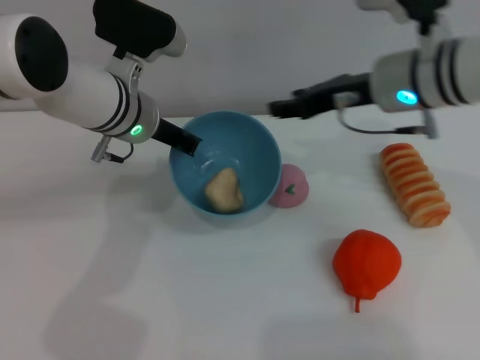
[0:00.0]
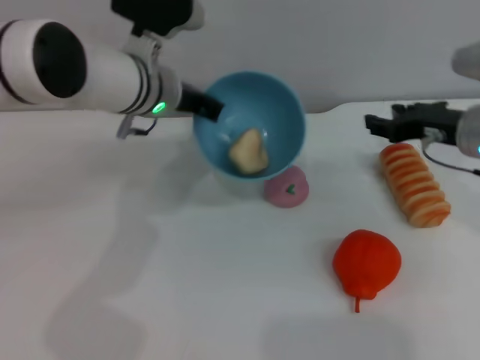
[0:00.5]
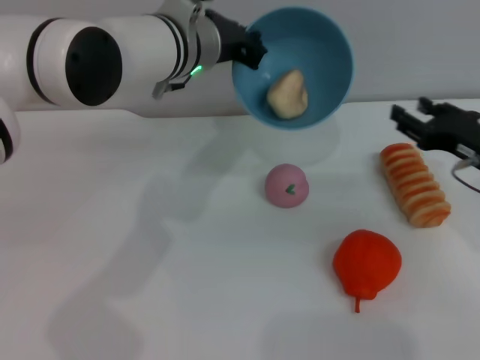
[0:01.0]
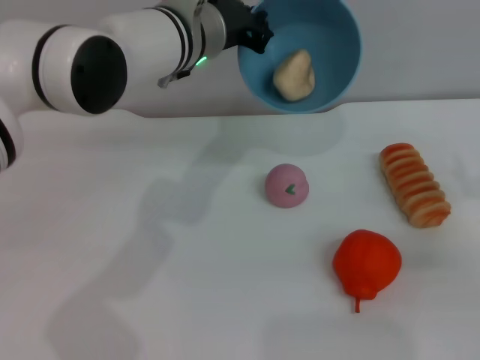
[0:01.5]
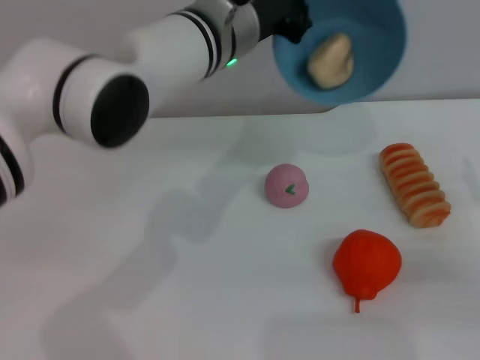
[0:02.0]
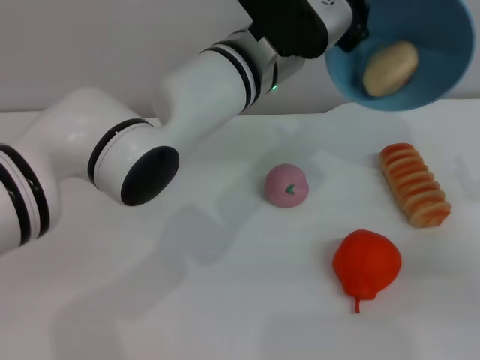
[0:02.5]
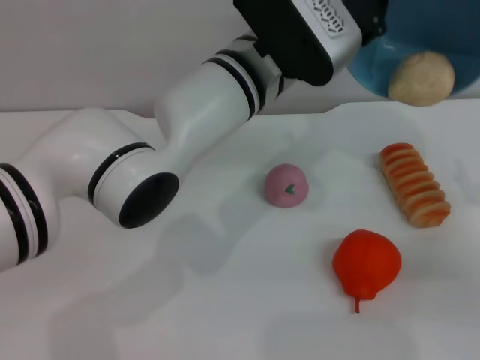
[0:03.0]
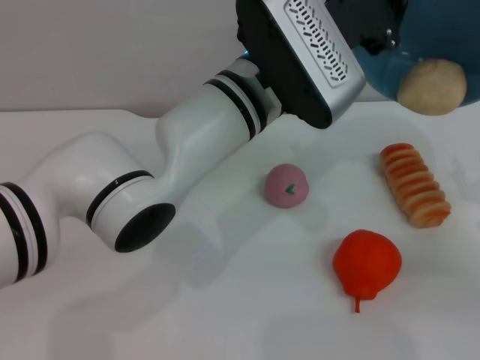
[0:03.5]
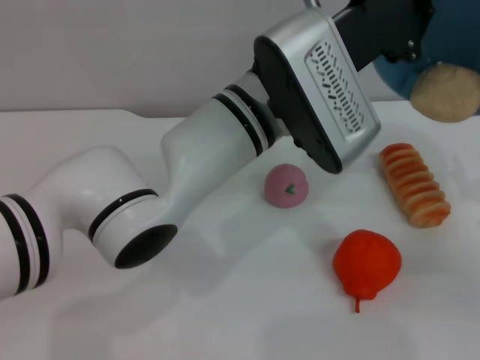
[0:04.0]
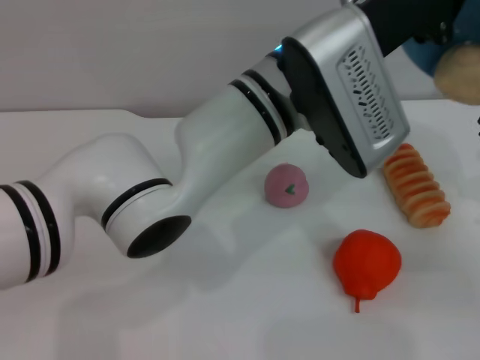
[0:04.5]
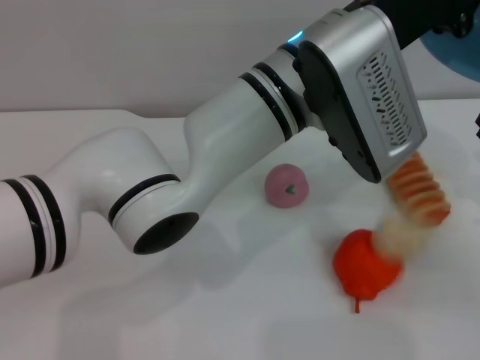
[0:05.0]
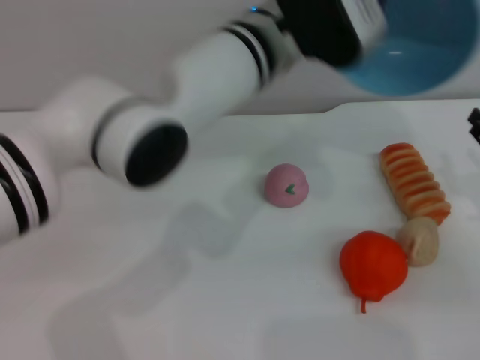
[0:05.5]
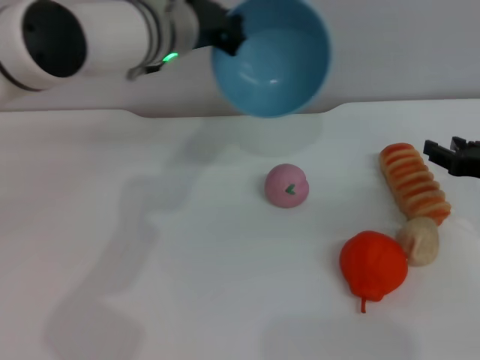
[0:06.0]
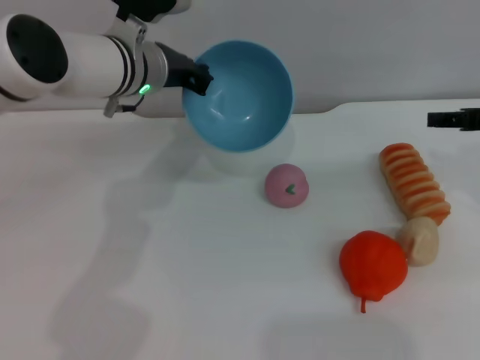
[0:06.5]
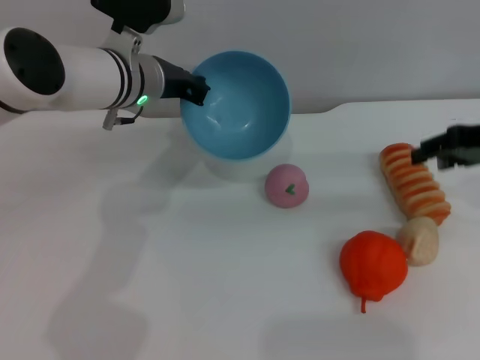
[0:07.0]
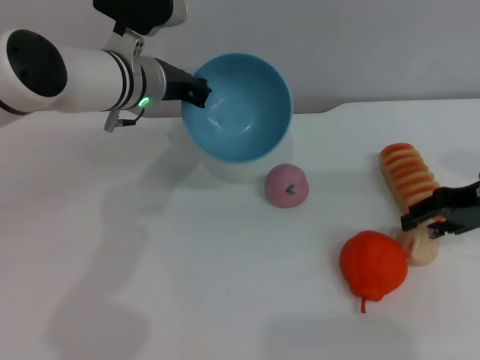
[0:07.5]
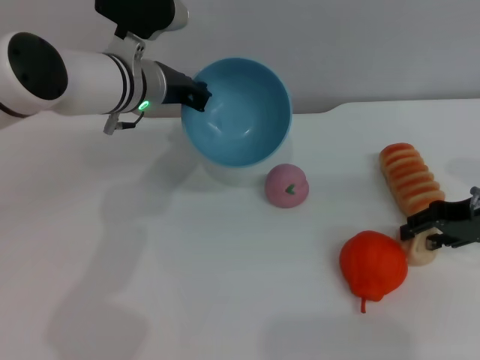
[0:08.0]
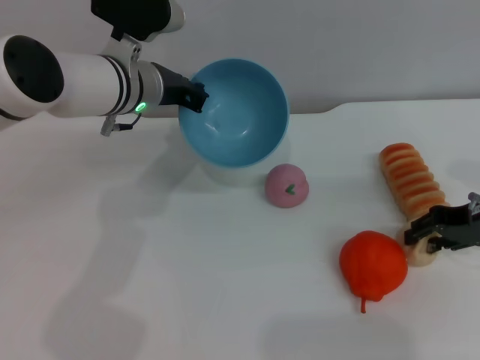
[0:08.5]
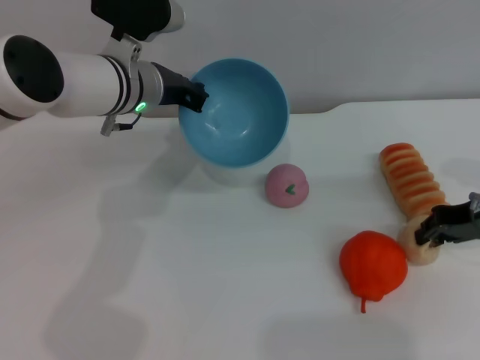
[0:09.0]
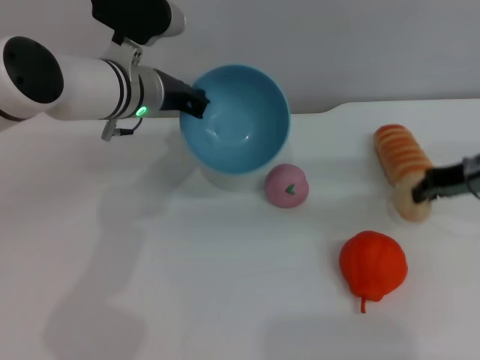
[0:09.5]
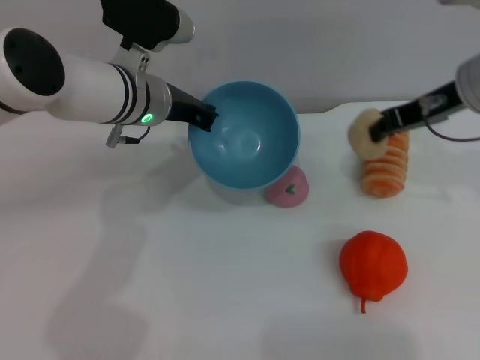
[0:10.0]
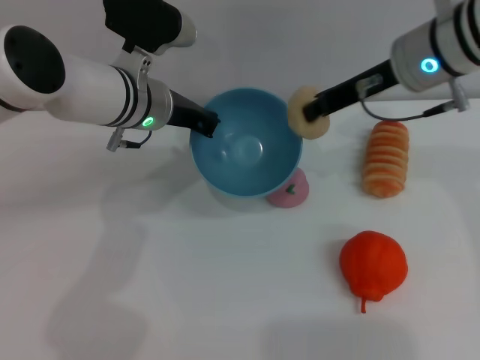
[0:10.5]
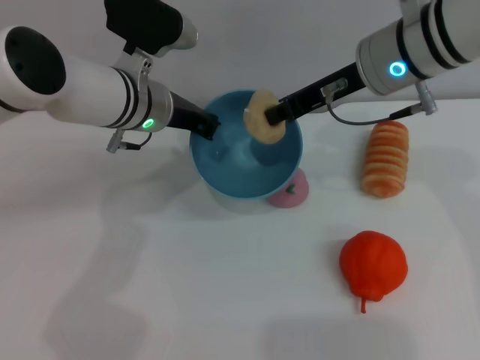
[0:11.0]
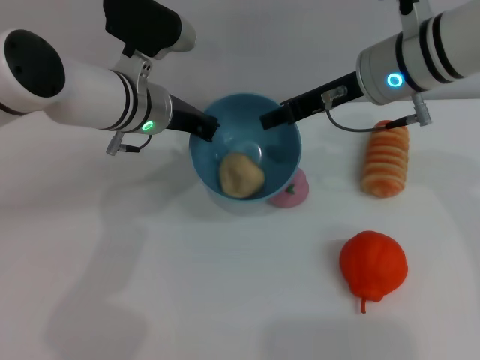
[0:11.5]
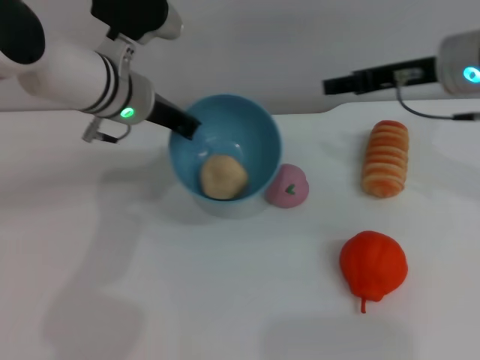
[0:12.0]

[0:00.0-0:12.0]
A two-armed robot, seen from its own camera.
Task of the whole recording: put the egg yolk pastry into the blue bowl and pour it out repeatedly.
Step, 0:00.5 to 0:05.0: Pour the egg yolk pastry out of bowl.
Step, 0:05.5 to 0:11.5: Pick up the egg yolk pastry with the right gripper.
0:00.0 to 0:02.0: The right gripper shifts roughly 25 cm to the right, backward and downward; the left gripper moves to the right and upward, some 10 cm.
0:02.0 to 0:04.0: The left gripper shifts approximately 5 cm backward.
0:04.0 to 0:06.0: The left gripper travels forward and to the left by approximately 15 cm.
0:06.0 to 0:08.0: The right gripper travels upward and back again, approximately 10 cm each way. Meanwhile the left gripper shifts by approximately 5 cm.
0:08.0 to 0:10.0: The right gripper heads upward, to the left and forward, covering roughly 15 cm, and closes its fingers.
0:10.0 to 0:12.0: The right gripper travels to the left and back again, approximately 10 cm each way, and opens its fingers.

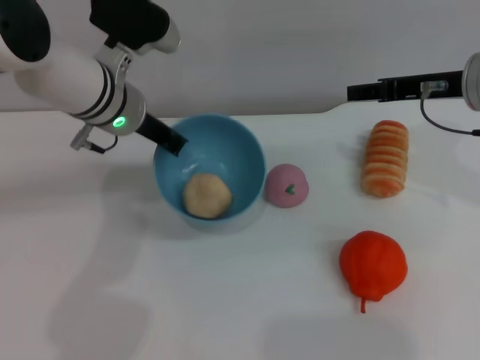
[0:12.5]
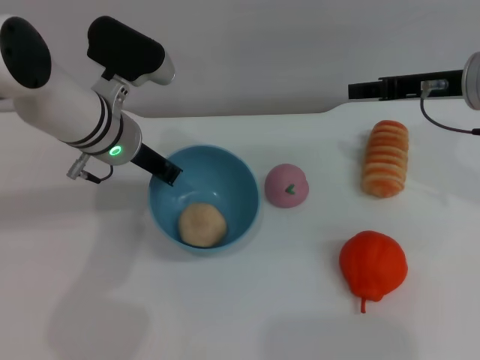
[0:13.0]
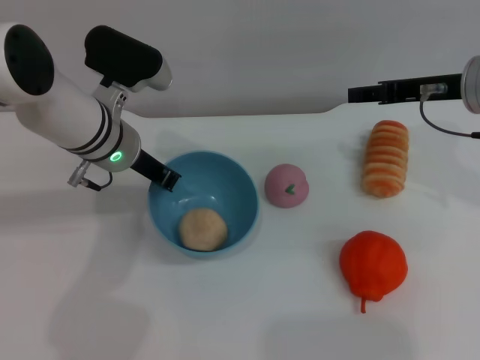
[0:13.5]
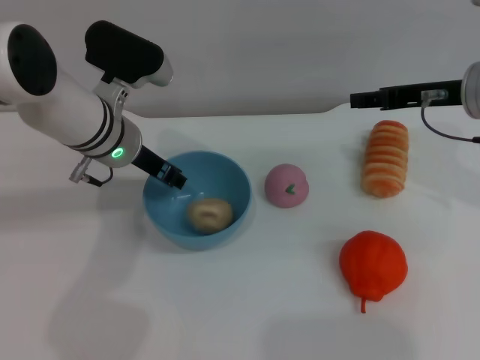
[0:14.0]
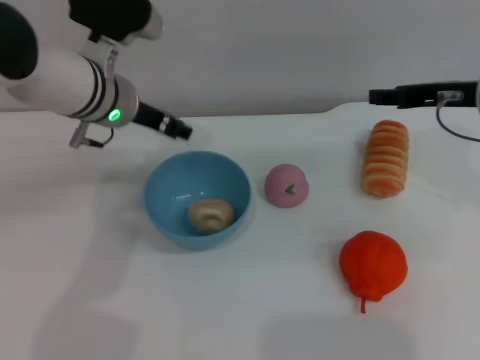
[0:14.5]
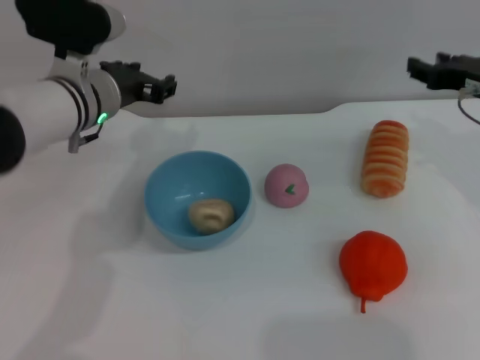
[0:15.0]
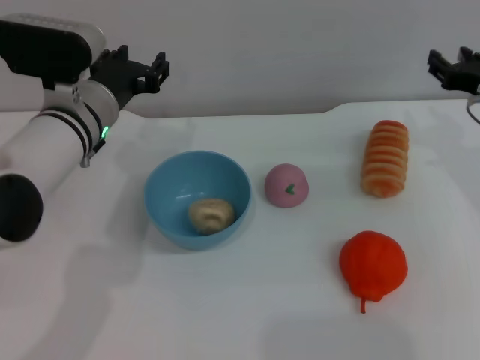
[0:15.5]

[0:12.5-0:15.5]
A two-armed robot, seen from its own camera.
Task of the whole recording: put the egg yolk pastry into the blue bowl and pour it out repeatedly.
Step, 0:12.5 to 0:14.0: Place the bowl on the table.
0:12.5 to 0:14.0: The grippers make only small movements.
0:14.0 to 0:15.5: The right gripper is displaced downward and to the right by approximately 10 cm, while the left gripper opens up.
